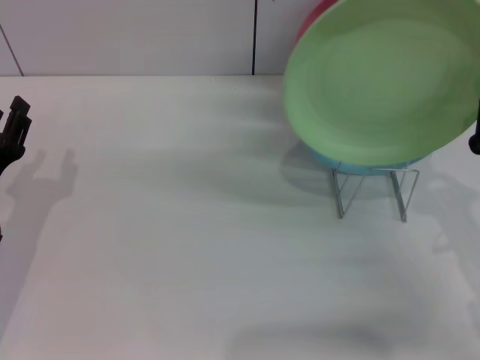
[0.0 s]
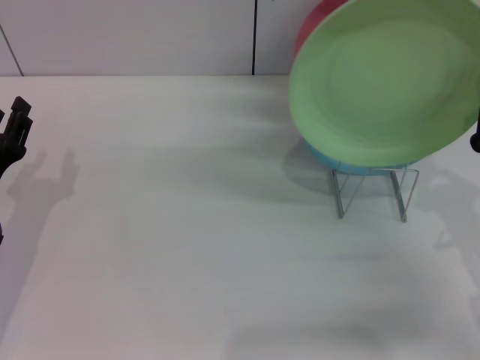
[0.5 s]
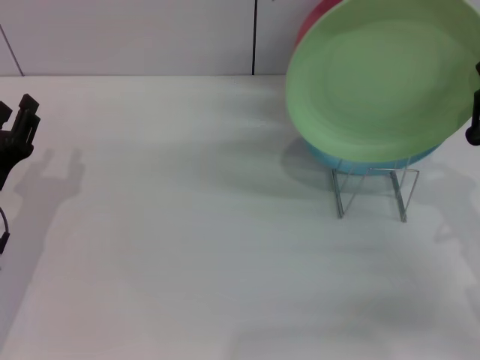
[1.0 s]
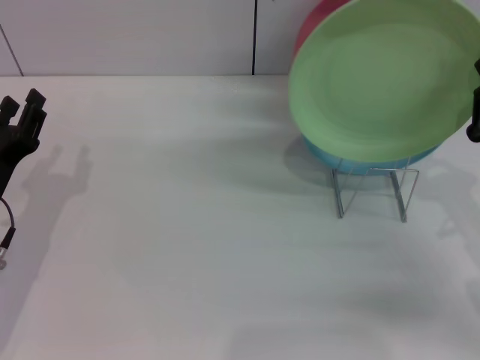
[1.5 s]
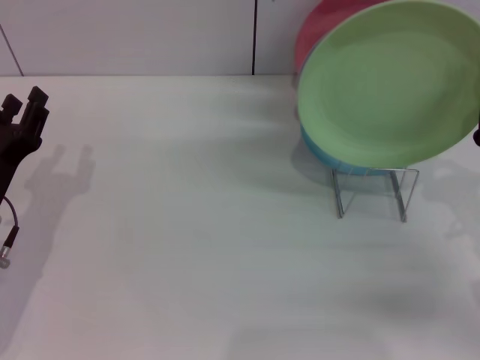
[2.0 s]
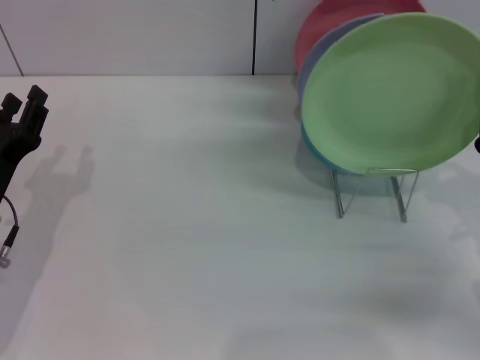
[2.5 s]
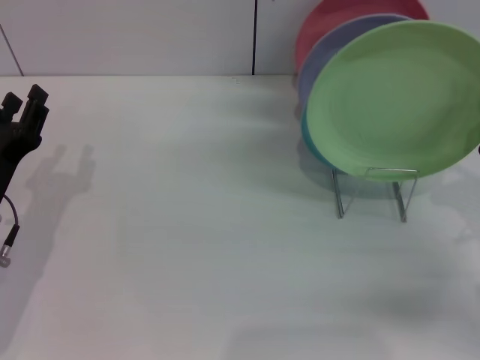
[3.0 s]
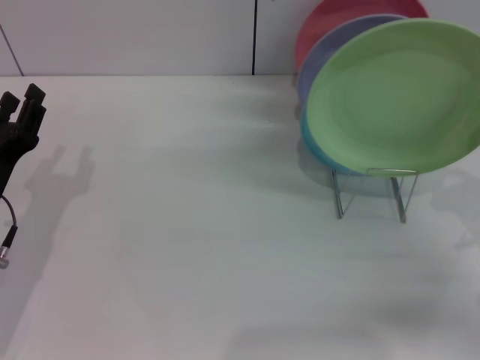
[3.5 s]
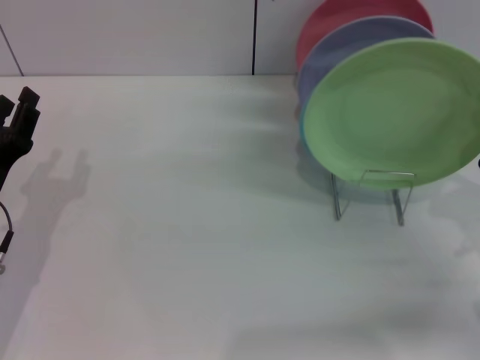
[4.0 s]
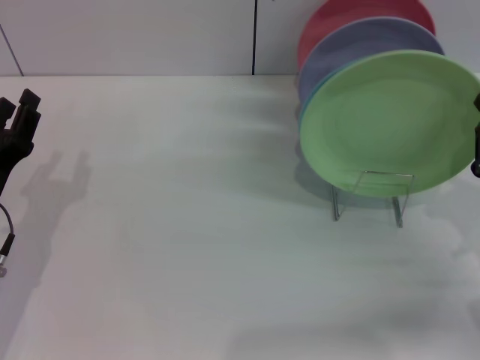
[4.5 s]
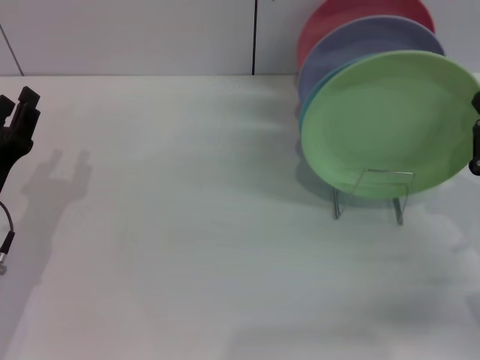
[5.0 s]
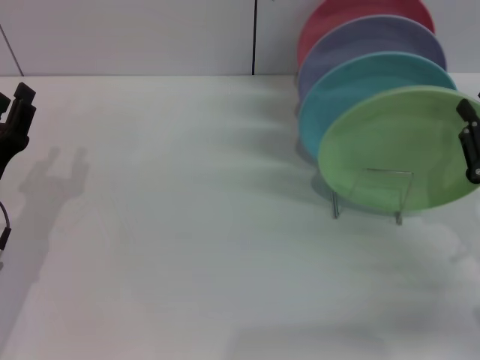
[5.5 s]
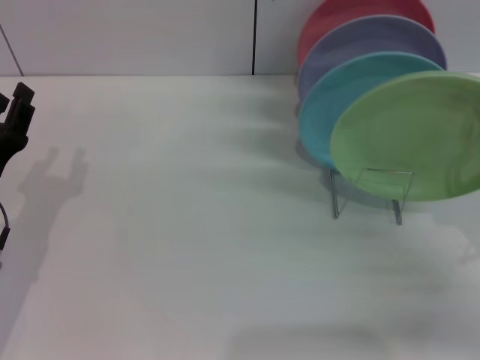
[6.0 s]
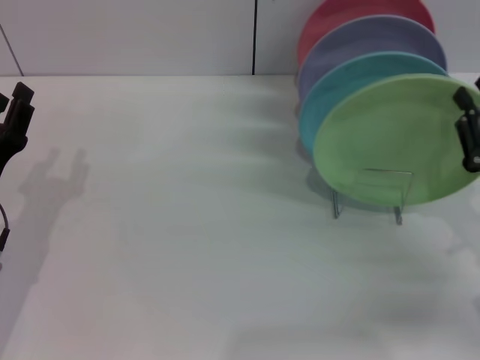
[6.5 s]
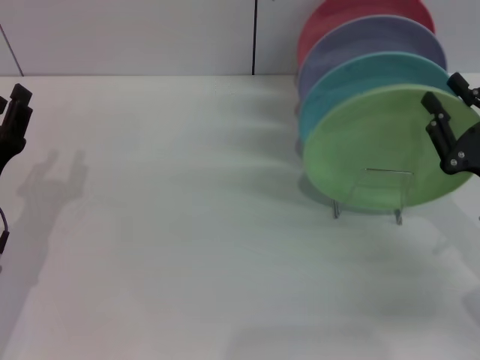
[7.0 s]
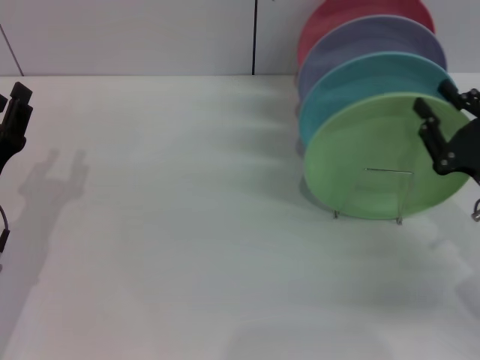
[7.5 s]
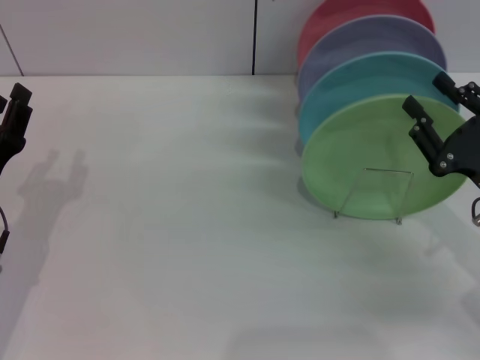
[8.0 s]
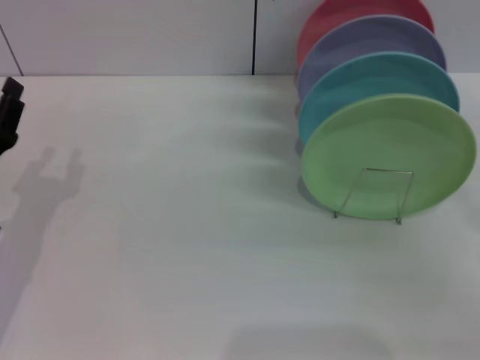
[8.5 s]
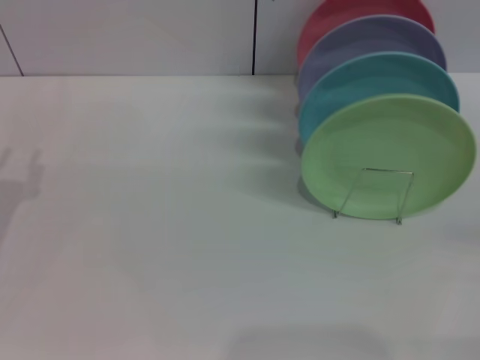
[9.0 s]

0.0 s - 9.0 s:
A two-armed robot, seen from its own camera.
Task of the whole recording: Grip the plate with one hand, pass it to the other, then set it on the shelf.
Step, 0.0 s - 8.0 s: Place the plate on the shelf with the right gripper.
0.0 s - 2.0 s: The grippers make only small movements.
2.0 s - 7.0 s: The grippers move only a little.
7.0 s - 9.0 s: The right gripper goes approximately 15 cm to the right and backward, while the left gripper ends up roughly 5 cm from where it was.
